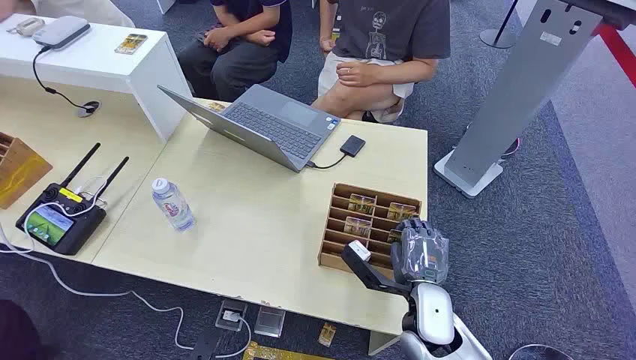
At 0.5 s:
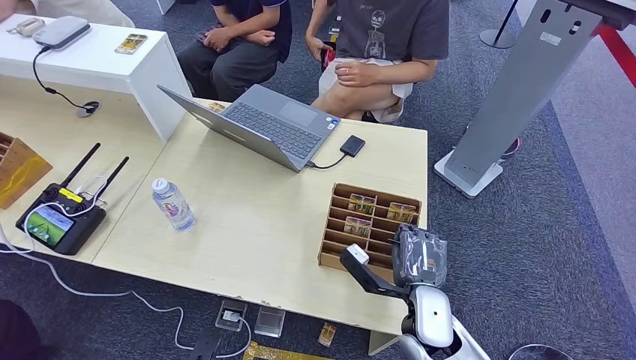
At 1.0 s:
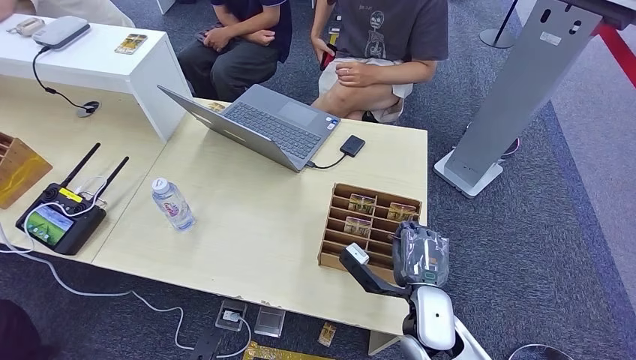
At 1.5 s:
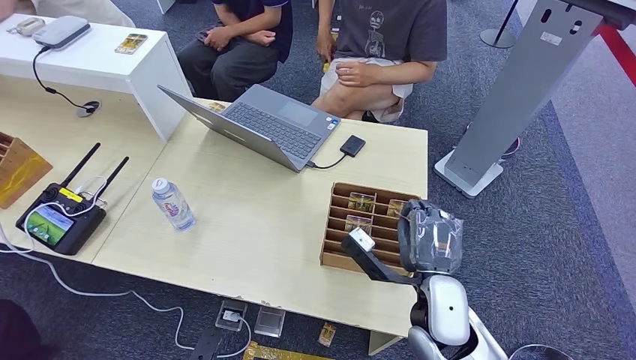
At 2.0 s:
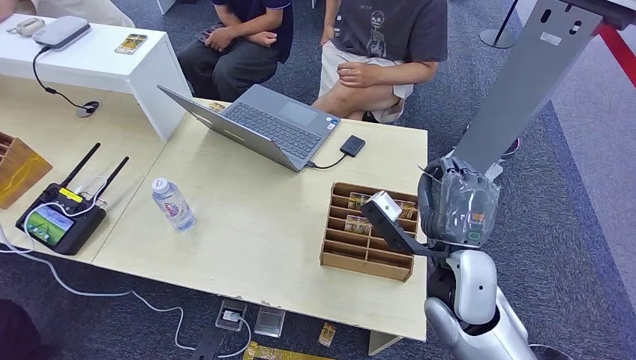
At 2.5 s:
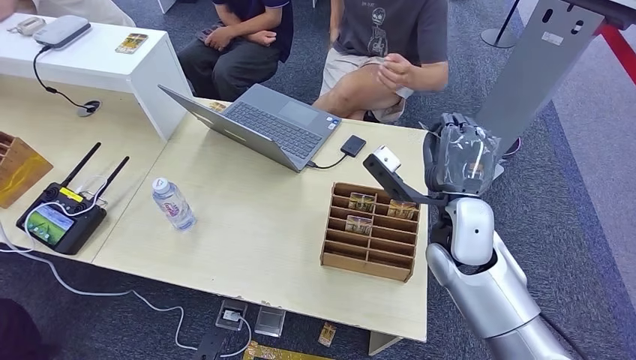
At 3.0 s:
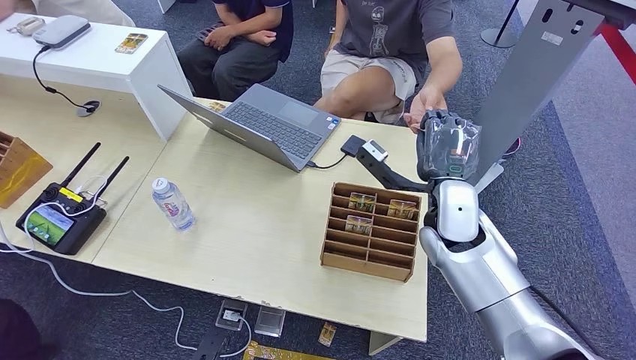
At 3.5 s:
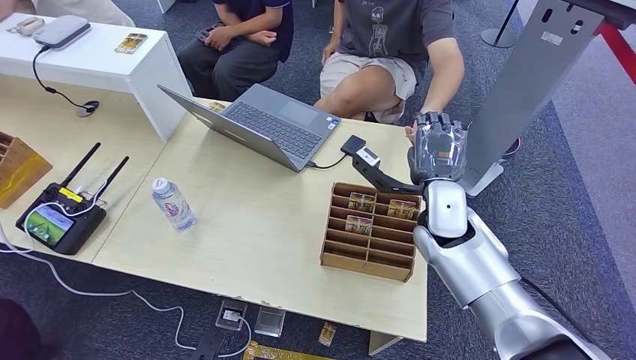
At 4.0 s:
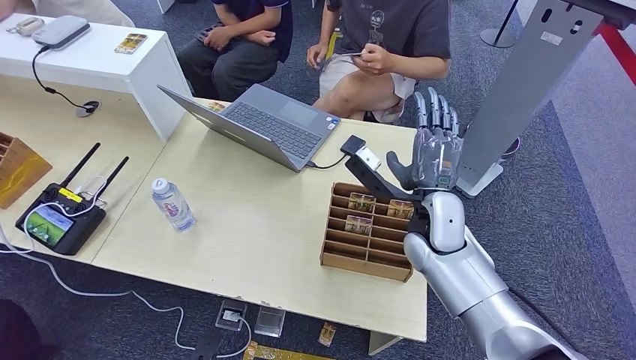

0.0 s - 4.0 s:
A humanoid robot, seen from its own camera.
Step, 0.0 s - 1.0 s: Pick up the room card from the card holder.
Step, 2.0 s - 4.0 s: Hand the room card to the target.
2.0 s - 4.0 s: The right hand travels forward by some 10 cm.

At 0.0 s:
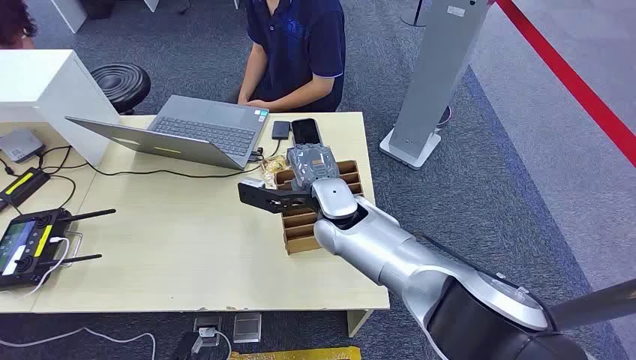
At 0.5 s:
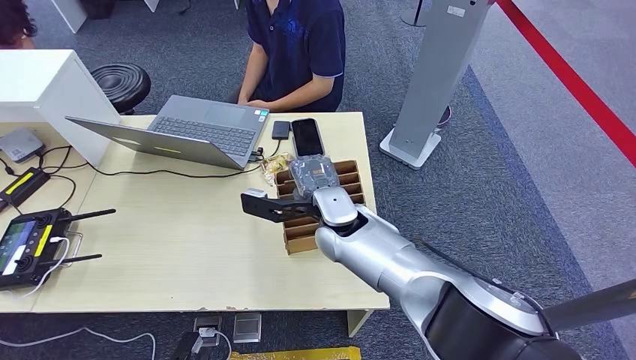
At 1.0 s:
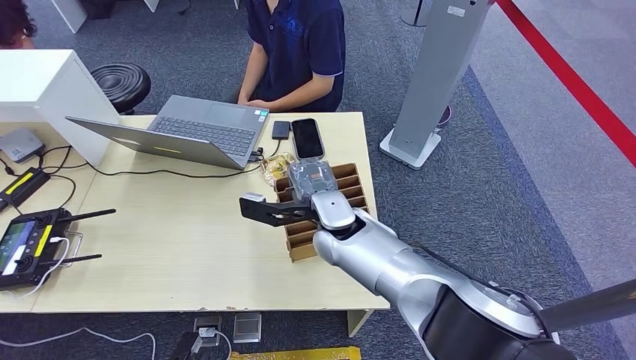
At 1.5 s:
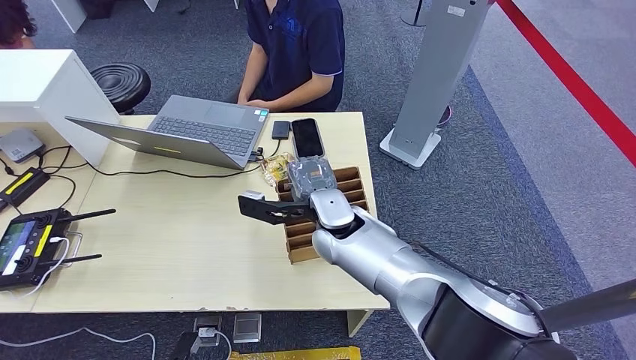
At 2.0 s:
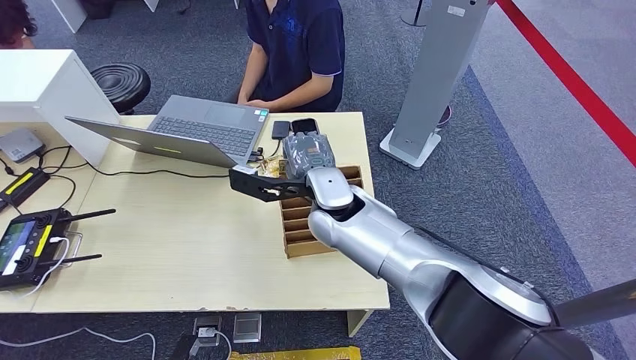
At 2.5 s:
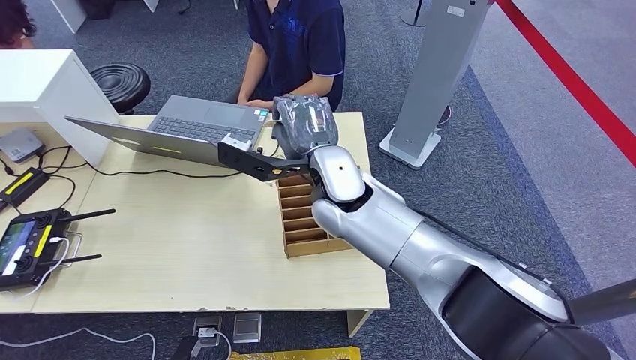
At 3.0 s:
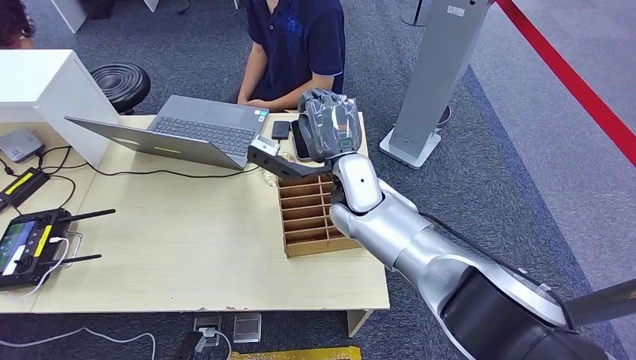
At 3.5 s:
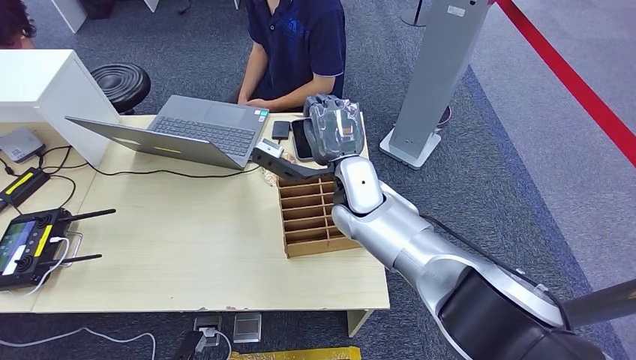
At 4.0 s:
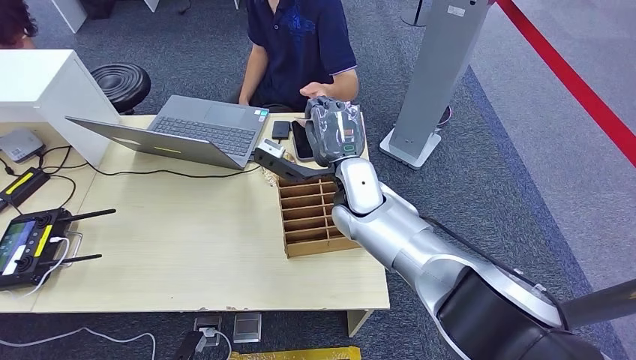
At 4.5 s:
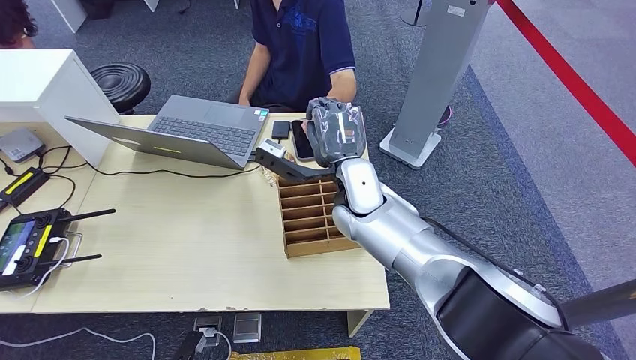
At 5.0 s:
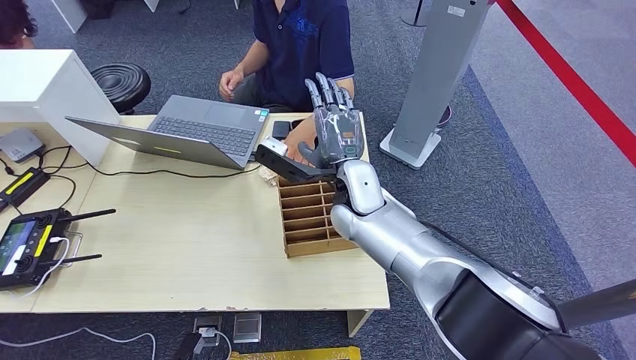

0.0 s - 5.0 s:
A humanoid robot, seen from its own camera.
Step, 0.0 s - 2.0 s: Pick up the room card from the card holder.
Step, 2.5 s - 5.0 s: Hand the room card to the target.
2.5 s - 5.0 s: The right hand goes some 5 cm downward.
